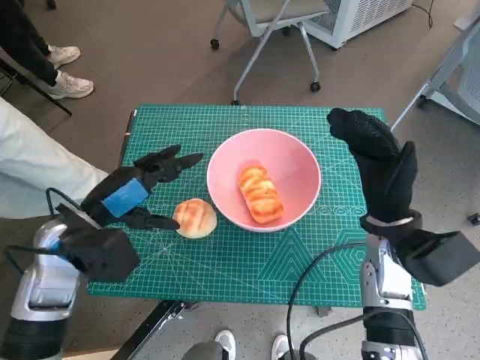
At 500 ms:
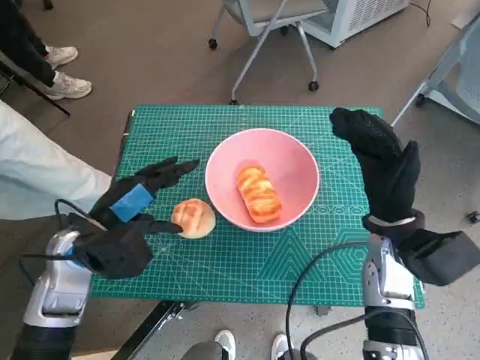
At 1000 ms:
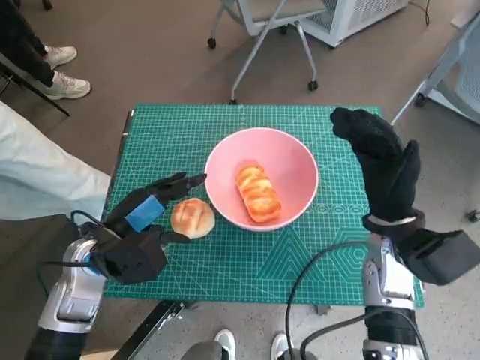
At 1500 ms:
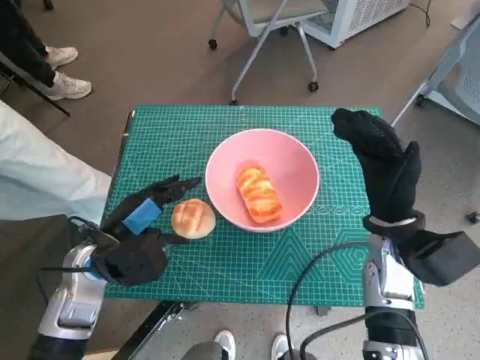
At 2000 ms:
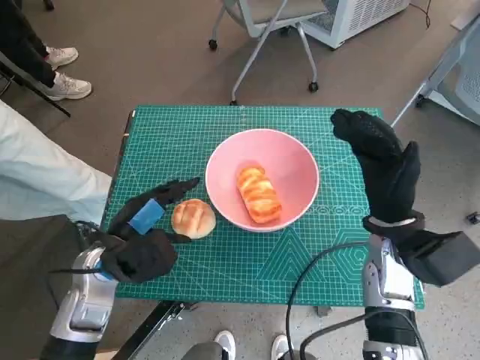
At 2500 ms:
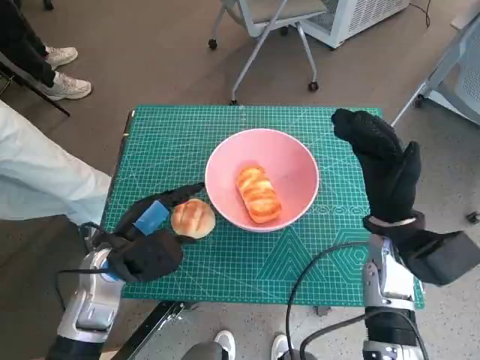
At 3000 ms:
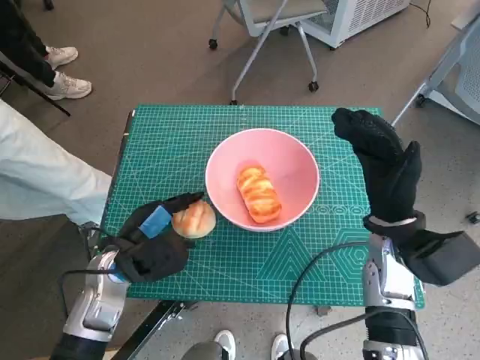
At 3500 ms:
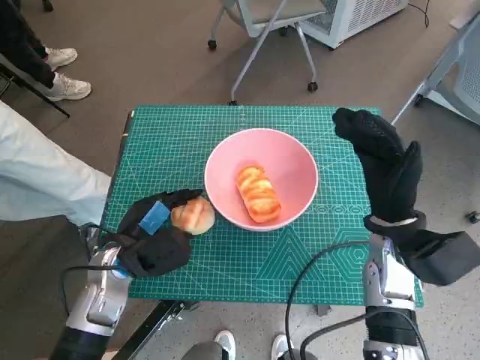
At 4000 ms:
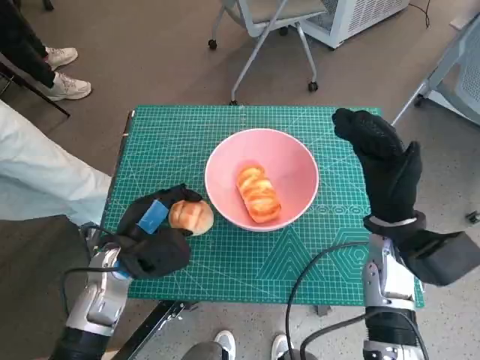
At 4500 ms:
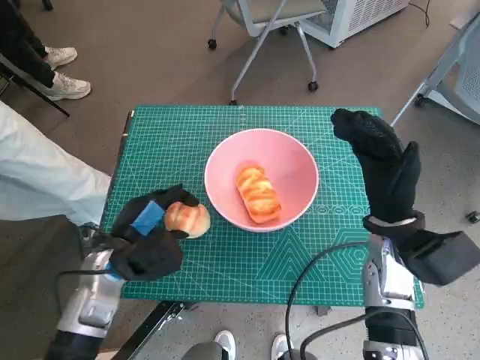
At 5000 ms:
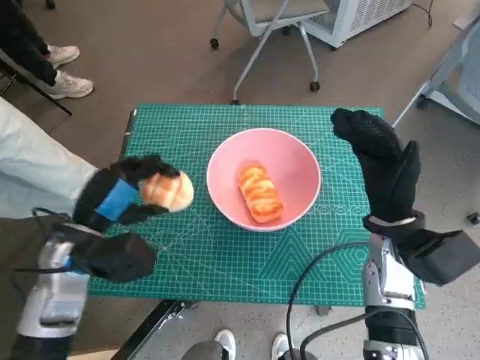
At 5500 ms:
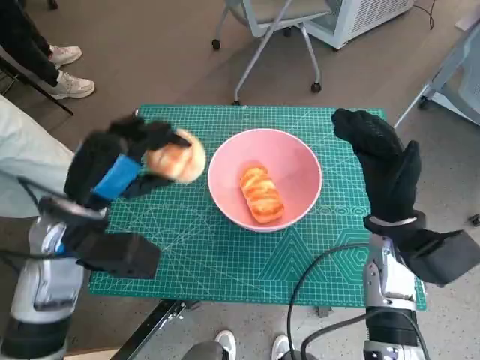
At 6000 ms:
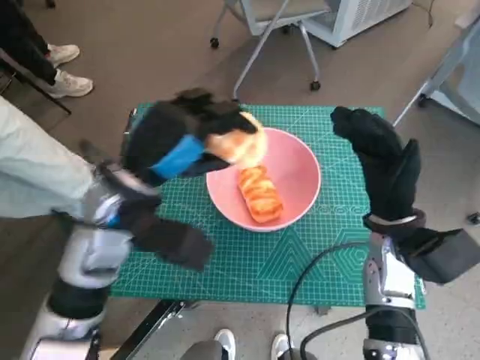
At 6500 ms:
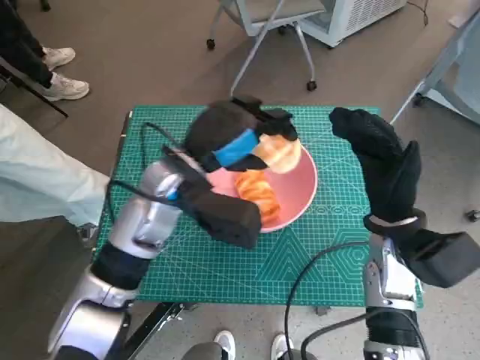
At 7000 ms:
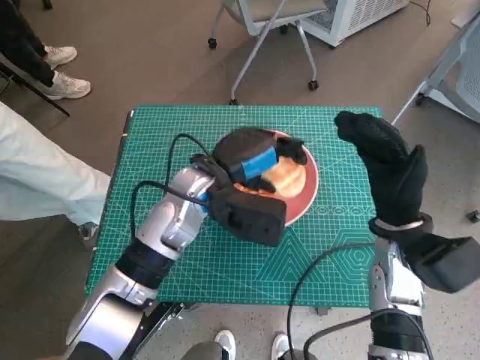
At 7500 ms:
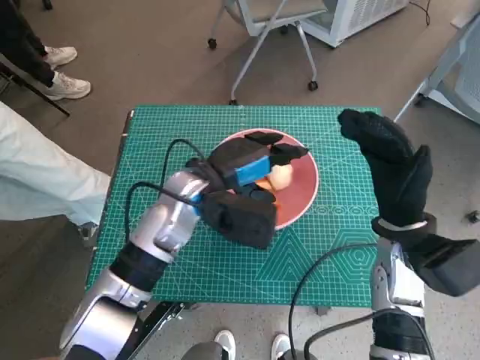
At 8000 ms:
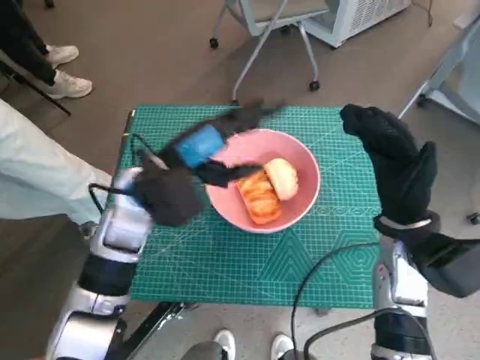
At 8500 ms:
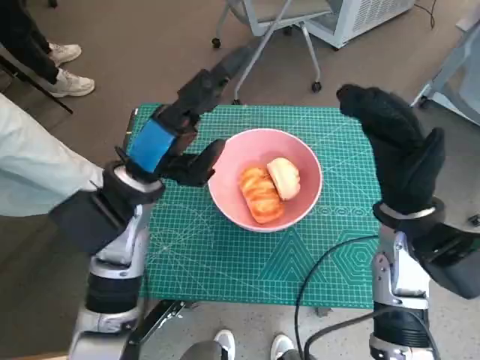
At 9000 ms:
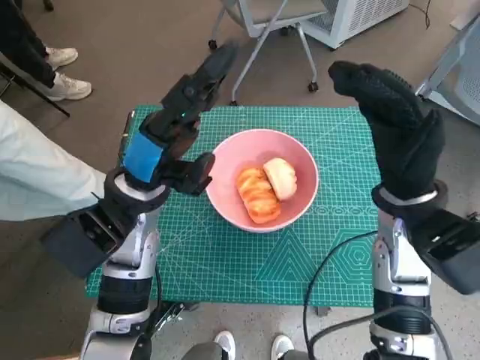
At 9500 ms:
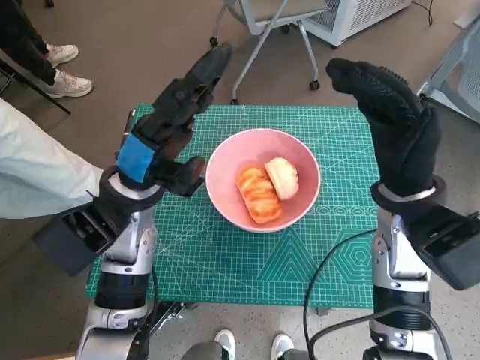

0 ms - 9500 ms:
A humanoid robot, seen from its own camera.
Task of the whole recording: Push the bowl into the center of the table and put the bread into the bowl.
Step, 0 ms - 3000 ms: Grasp the round bread with left hand.
Step, 3500 ms - 7500 ms: Place the round bread in pink bowl with left hand.
0 ms - 2000 ms: The left hand travels downward by about 5 cm.
2000 ms - 4000 ms: The hands move only a little.
4000 ms - 5500 ms: The left hand shifts about 10 cm upward.
5500 ms - 7500 ms: The left hand is displaced to the right and forward by roughly 15 cm.
7500 ms - 9500 ms: The right hand travels upward by roughly 5 cm; the left hand goes roughly 5 cm to the left.
